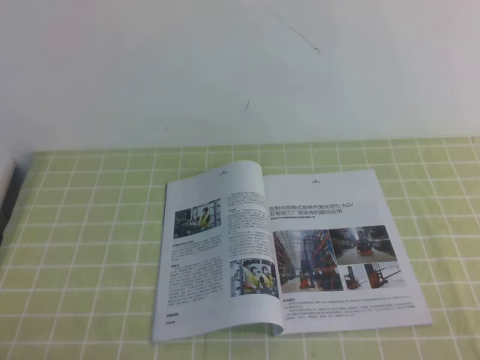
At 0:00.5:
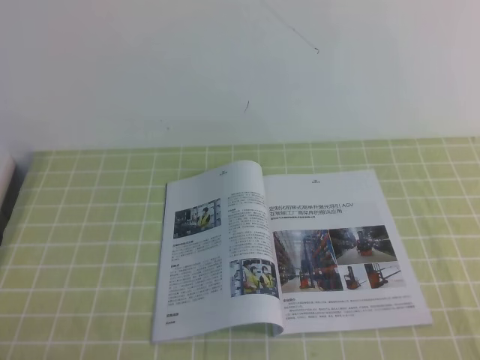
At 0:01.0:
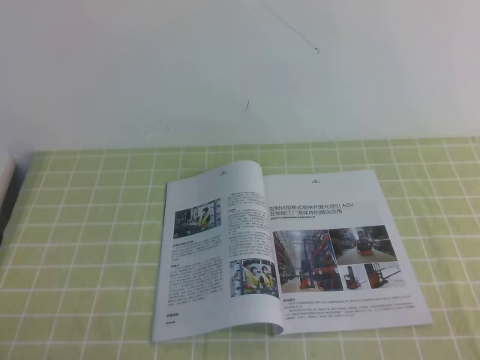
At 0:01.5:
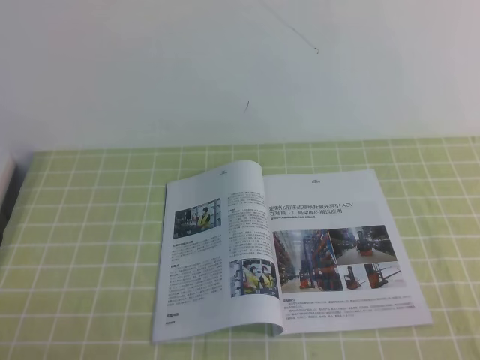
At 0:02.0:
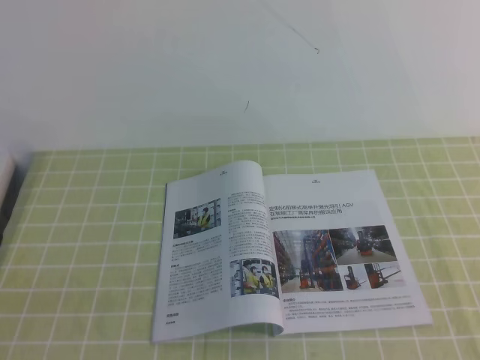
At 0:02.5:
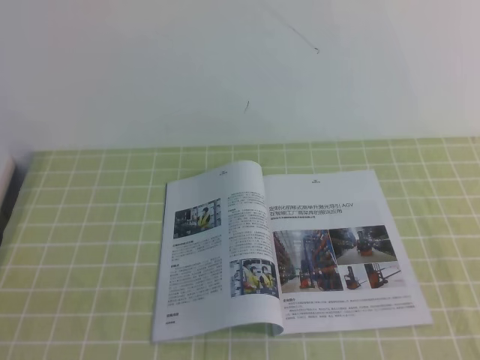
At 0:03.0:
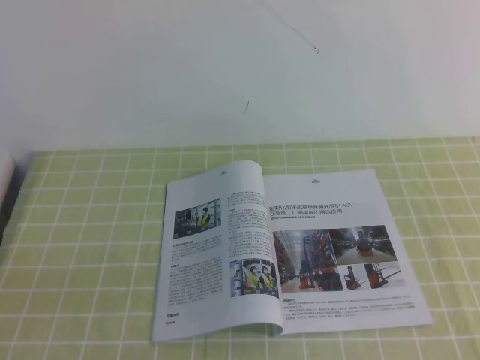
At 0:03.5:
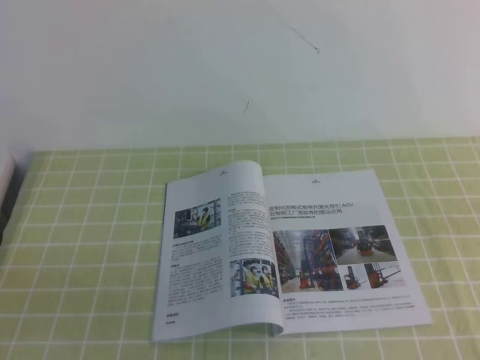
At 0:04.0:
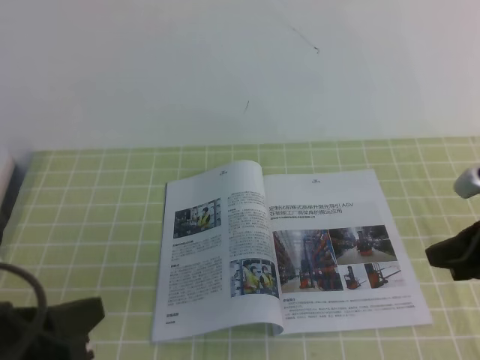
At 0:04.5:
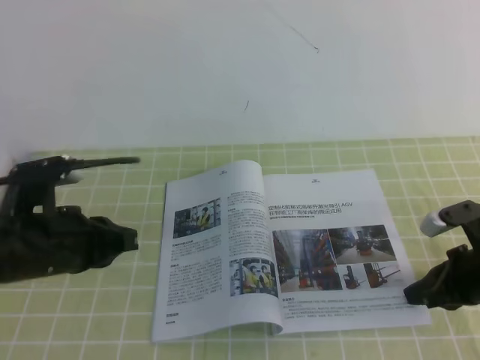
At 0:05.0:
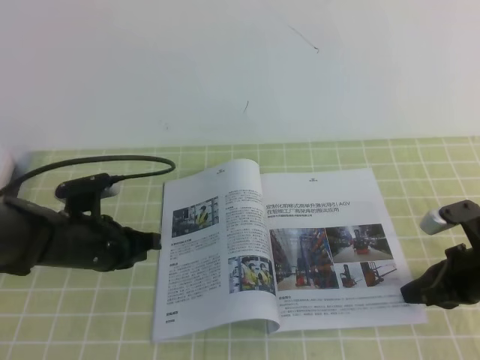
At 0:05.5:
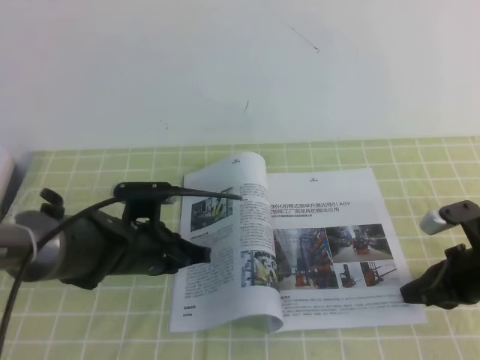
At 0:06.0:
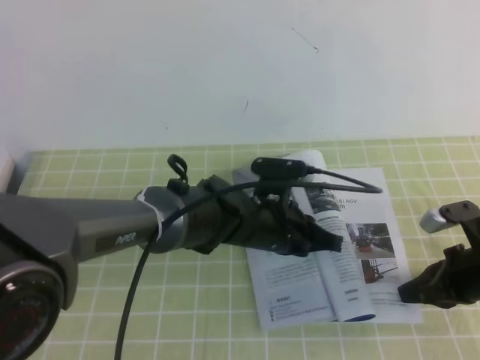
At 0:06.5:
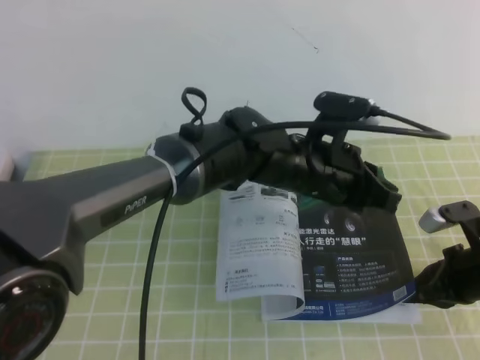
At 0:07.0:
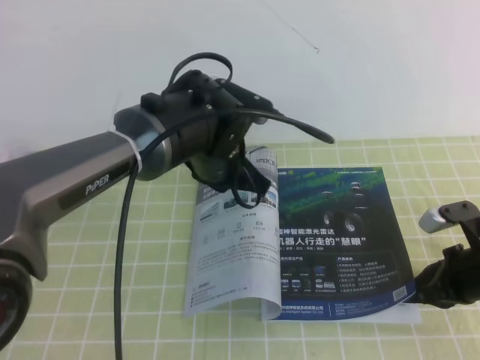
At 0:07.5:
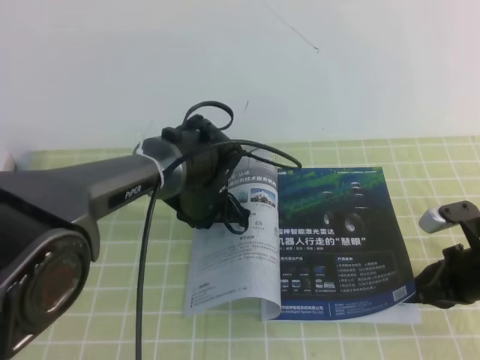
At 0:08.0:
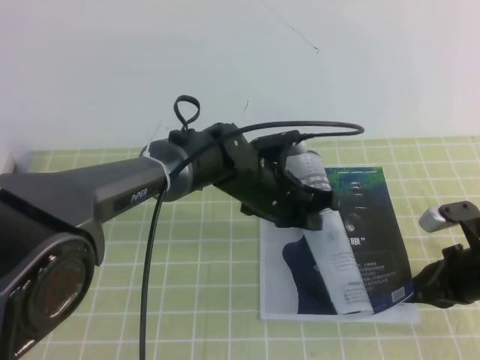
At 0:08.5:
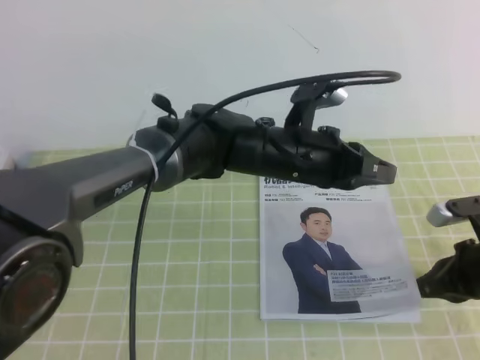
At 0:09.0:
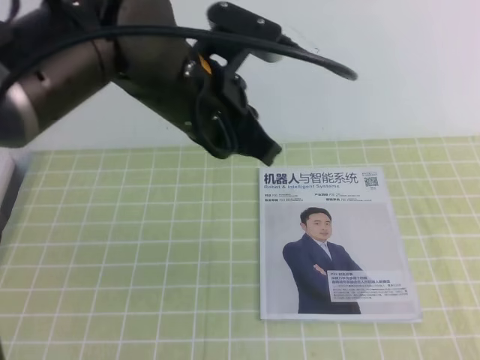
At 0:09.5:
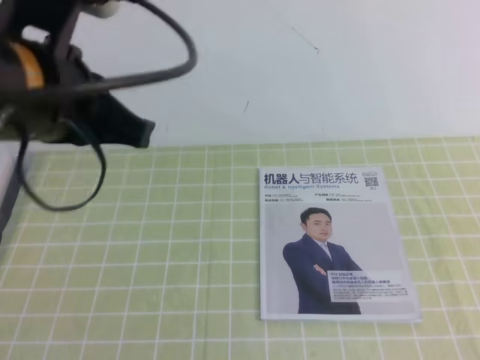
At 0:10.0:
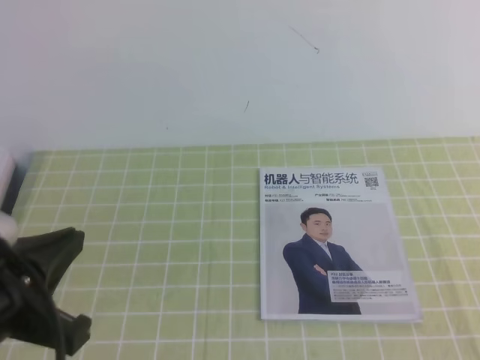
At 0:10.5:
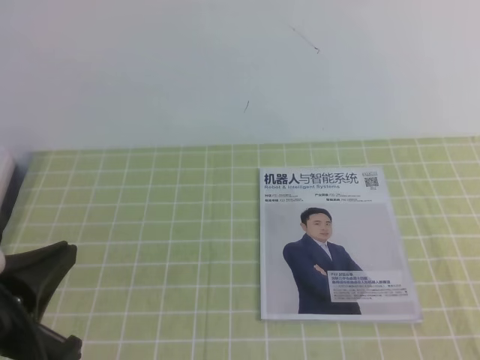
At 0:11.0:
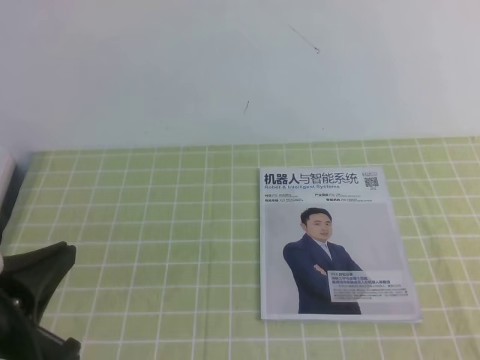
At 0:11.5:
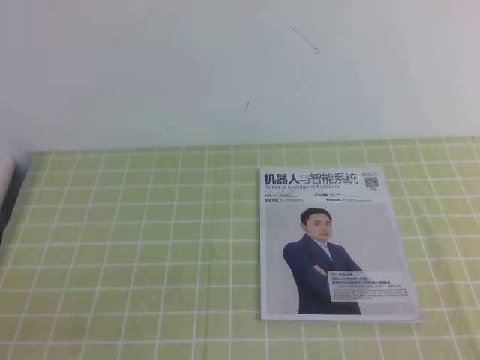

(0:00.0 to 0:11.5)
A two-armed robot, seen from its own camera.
Task of the whole recording: on the green tablecloth, hold the book with one hand and close it with the other.
0:02.0 - 0:04.0: The left gripper goes approximately 10 cm forward and to the right; the right gripper heads forward, covering roughly 20 cm.
0:04.0 - 0:06.0: The right gripper goes some 10 cm downward. Meanwhile the left gripper moves to the right, forward and downward, approximately 35 cm.
0:06.0 - 0:07.5: The left gripper travels forward by approximately 5 cm.
0:07.5 - 0:09.5: The left gripper is displaced upward, backward and to the left by roughly 30 cm. Meanwhile the right gripper shifts approximately 30 cm upward and backward.
0:09.5 - 0:11.5: The right gripper heads backward and downward, covering approximately 10 cm. The left gripper travels downward, backward and to the left by roughly 25 cm.

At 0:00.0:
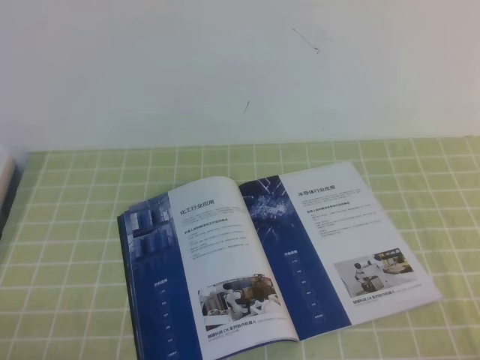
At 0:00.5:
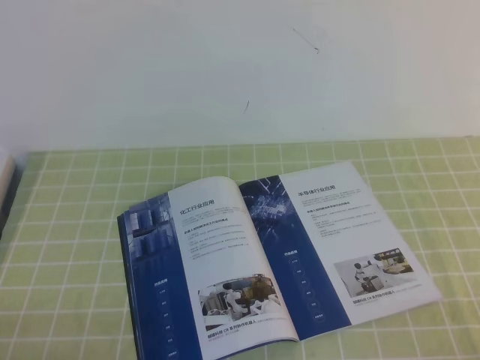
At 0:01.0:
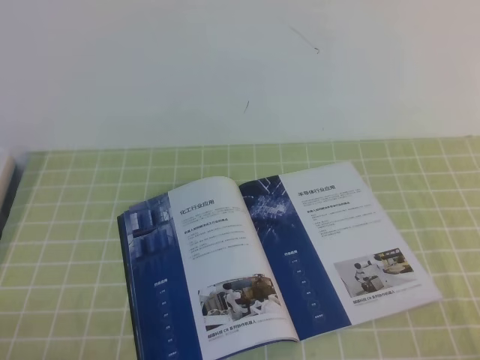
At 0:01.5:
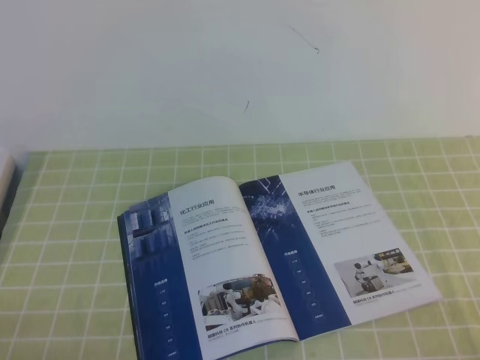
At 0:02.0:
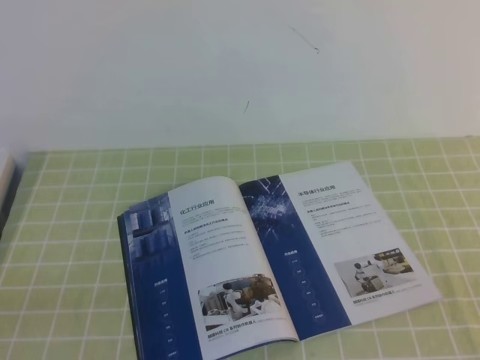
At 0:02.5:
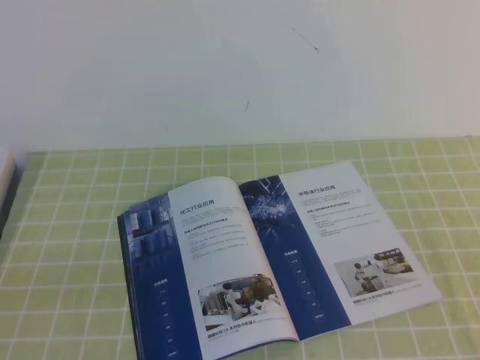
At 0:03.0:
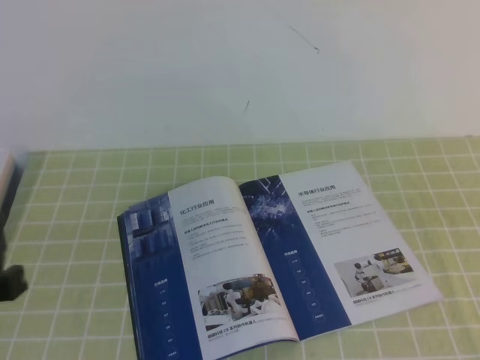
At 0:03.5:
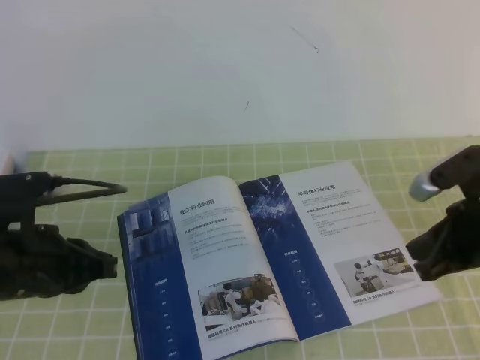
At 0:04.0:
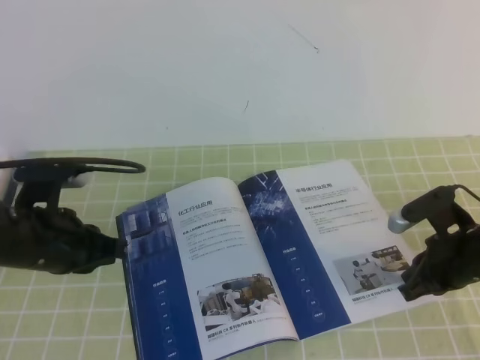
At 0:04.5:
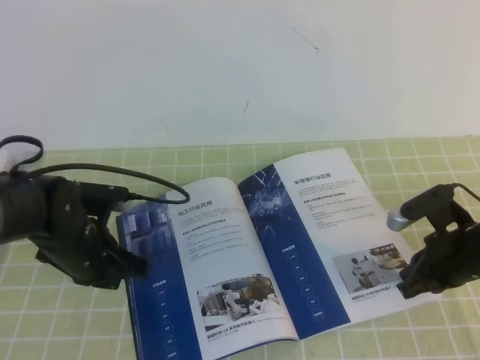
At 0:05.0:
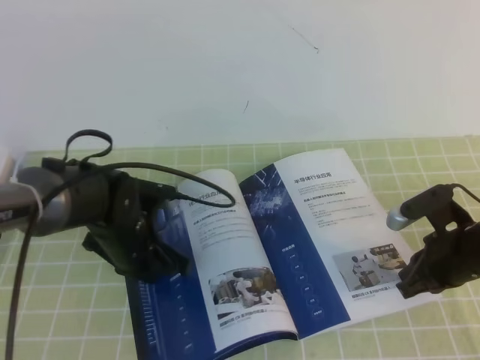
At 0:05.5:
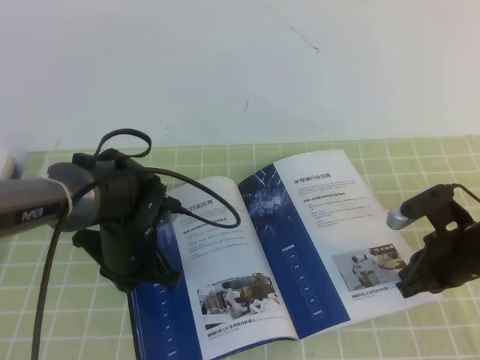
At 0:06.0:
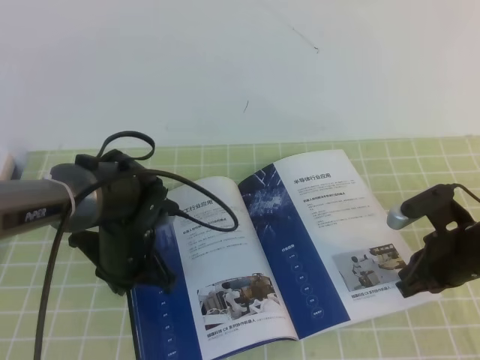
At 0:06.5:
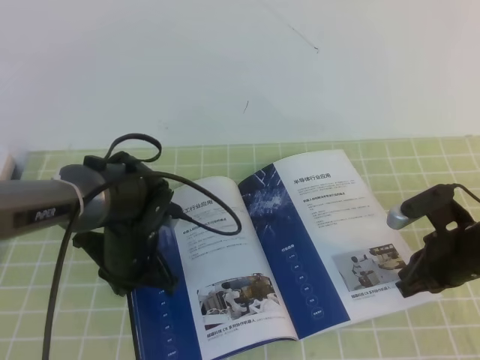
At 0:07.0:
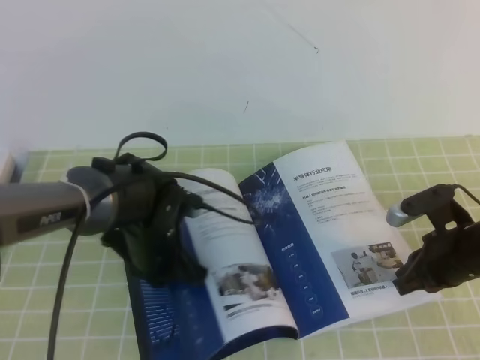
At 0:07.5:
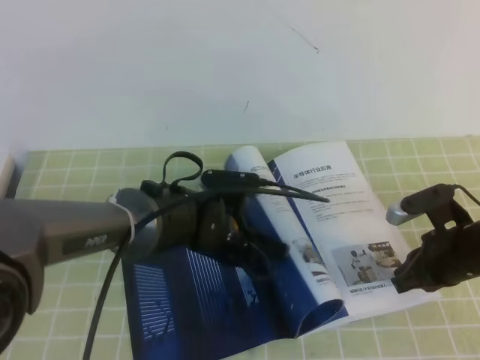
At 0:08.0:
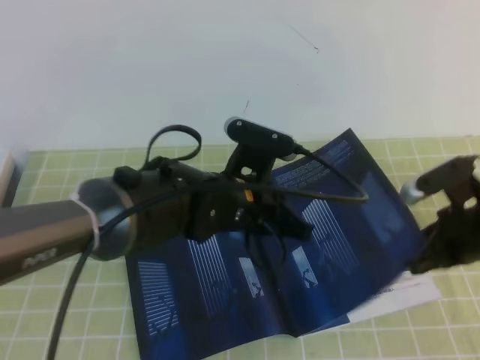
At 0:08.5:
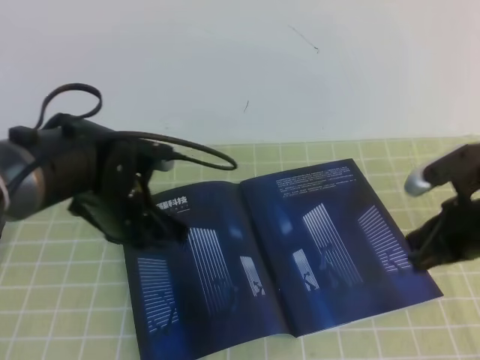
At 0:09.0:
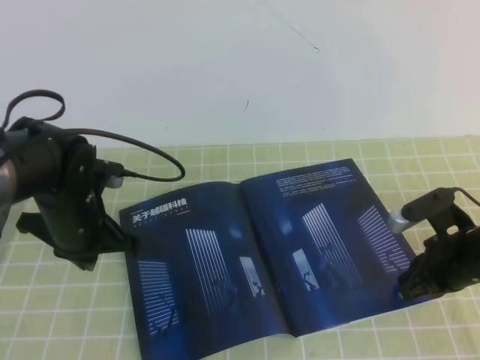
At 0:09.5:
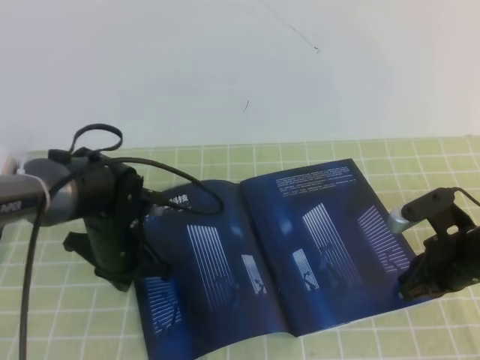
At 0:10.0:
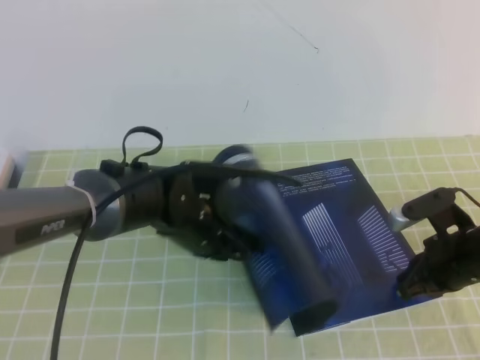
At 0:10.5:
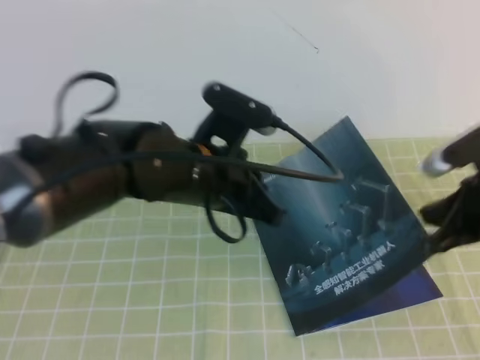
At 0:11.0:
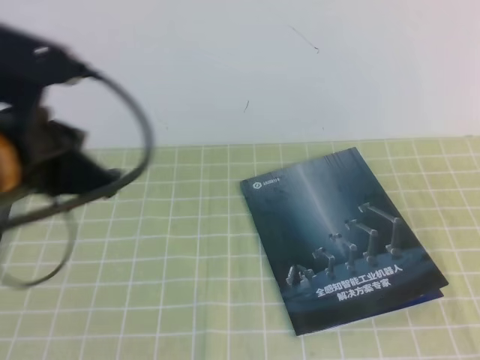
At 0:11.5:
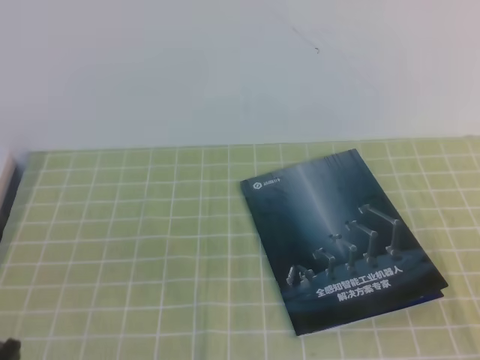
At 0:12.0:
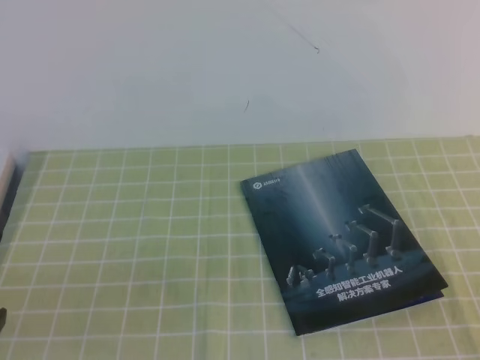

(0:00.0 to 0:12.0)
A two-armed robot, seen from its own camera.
Task of the whole recording: on the green tablecloth, hold the book with one hand and close it with the other.
0:02.0 - 0:04.0: The left gripper goes about 25 cm forward. Meanwhile the right gripper heads forward and downward, covering approximately 30 cm.
0:04.0 - 0:06.0: The left gripper is displaced to the right, downward and forward by roughly 10 cm.
0:06.0 - 0:08.0: The left gripper is displaced to the right and upward by about 15 cm.
0:08.0 - 0:10.0: The left gripper goes to the left and returns, approximately 15 cm each way.
0:10.0 - 0:12.0: The right gripper goes approximately 30 cm backward and upward. The left gripper is displaced backward and to the left by about 30 cm.

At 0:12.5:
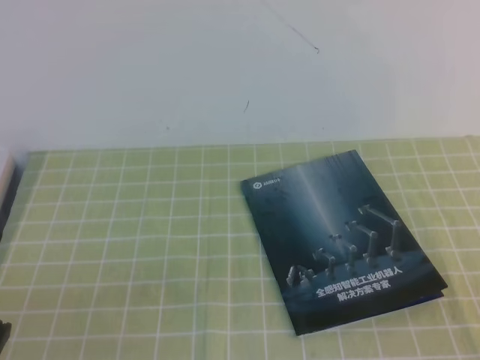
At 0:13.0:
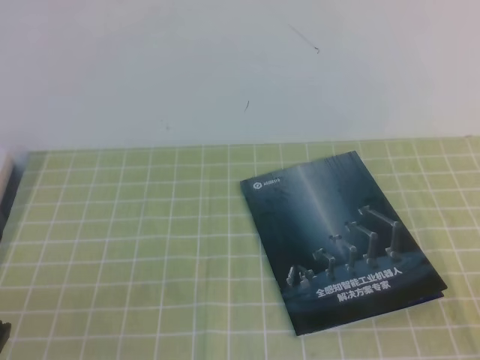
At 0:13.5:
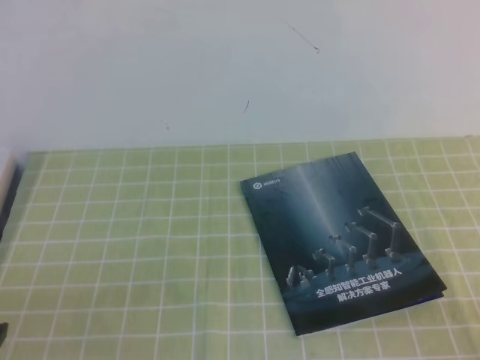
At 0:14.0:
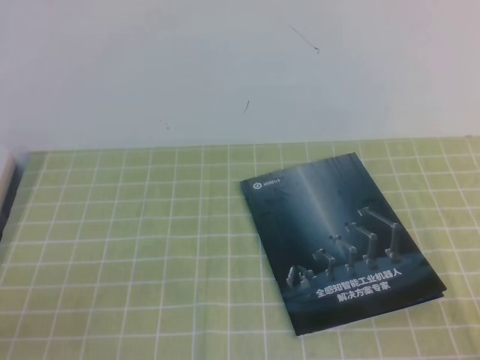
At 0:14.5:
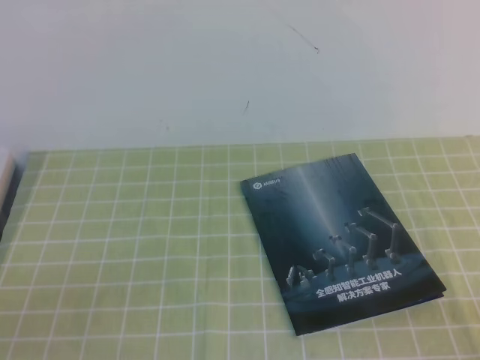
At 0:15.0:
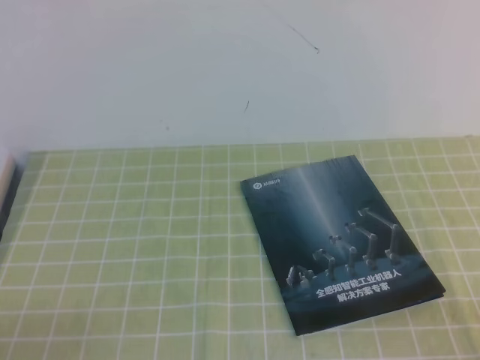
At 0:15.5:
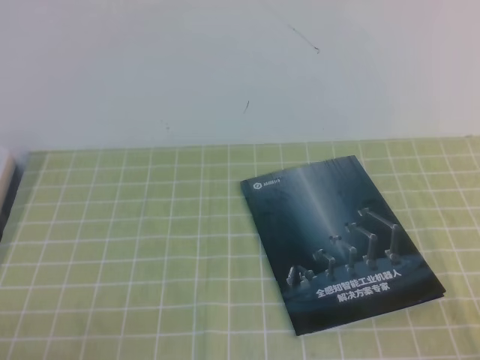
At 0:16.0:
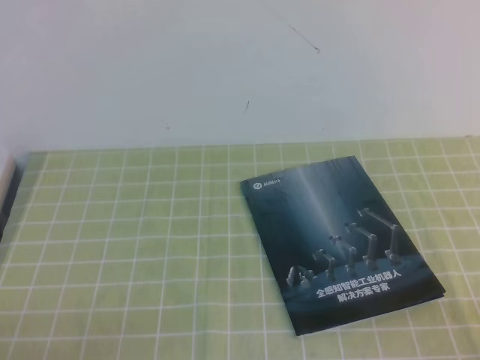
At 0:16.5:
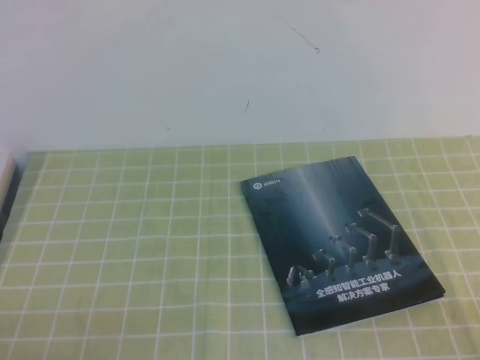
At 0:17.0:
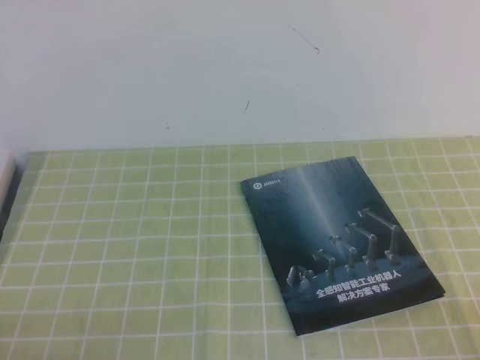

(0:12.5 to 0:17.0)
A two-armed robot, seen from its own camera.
Task of the whole recording: on the green tablecloth, hold the book with one hand and close it with the other.
0:12.5 - 0:14.5: The right gripper heads downward, covering some 10 cm.
